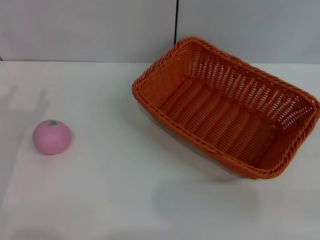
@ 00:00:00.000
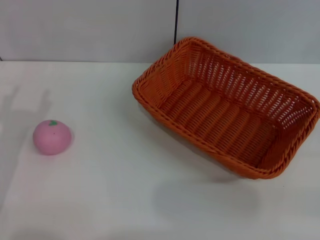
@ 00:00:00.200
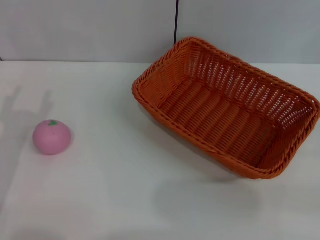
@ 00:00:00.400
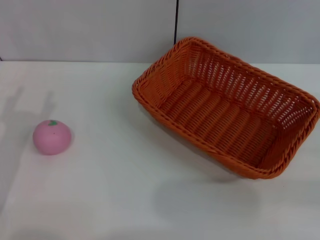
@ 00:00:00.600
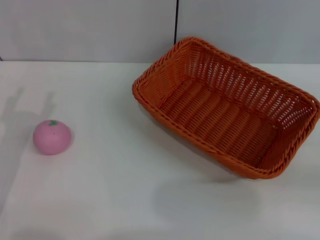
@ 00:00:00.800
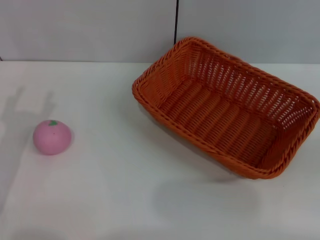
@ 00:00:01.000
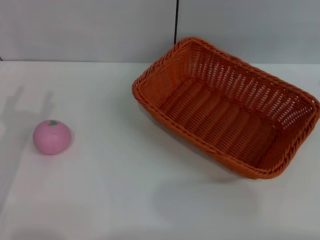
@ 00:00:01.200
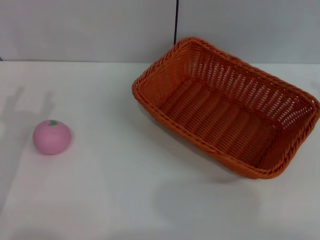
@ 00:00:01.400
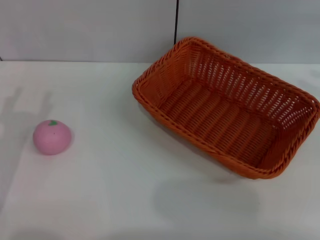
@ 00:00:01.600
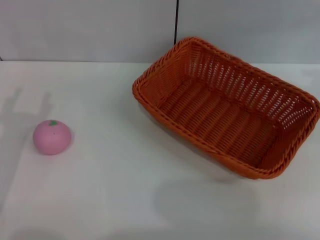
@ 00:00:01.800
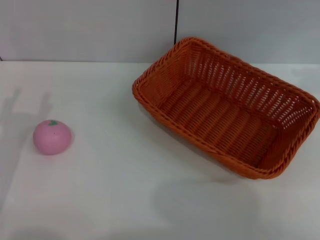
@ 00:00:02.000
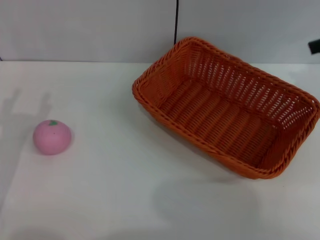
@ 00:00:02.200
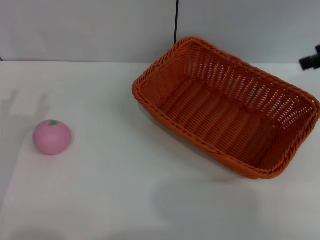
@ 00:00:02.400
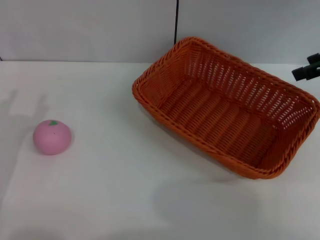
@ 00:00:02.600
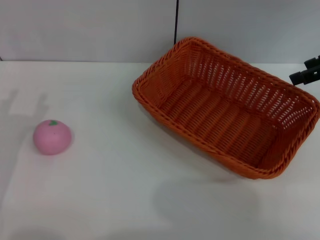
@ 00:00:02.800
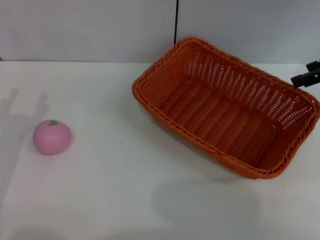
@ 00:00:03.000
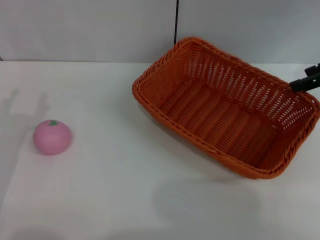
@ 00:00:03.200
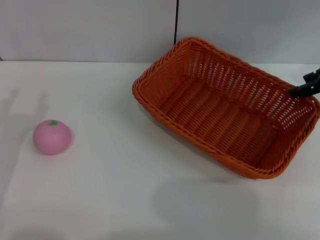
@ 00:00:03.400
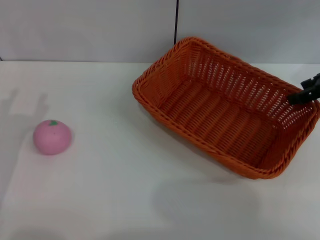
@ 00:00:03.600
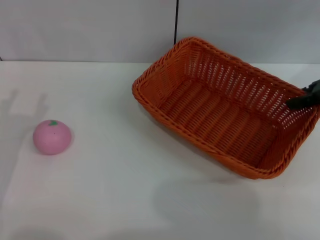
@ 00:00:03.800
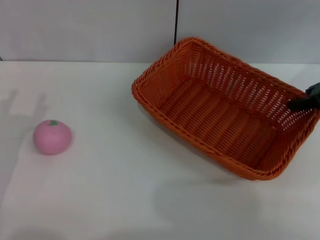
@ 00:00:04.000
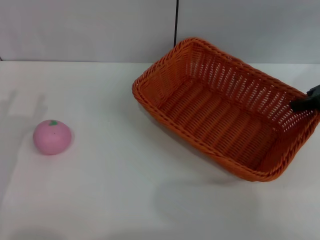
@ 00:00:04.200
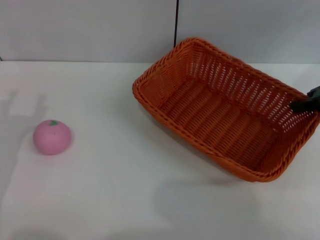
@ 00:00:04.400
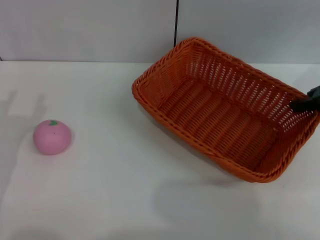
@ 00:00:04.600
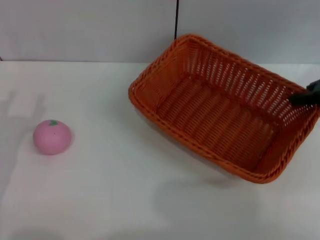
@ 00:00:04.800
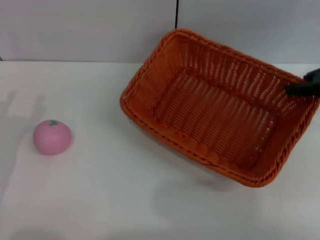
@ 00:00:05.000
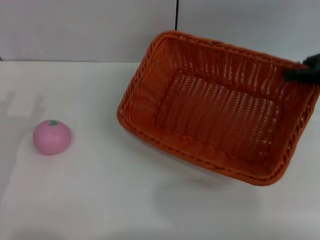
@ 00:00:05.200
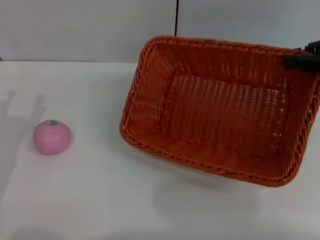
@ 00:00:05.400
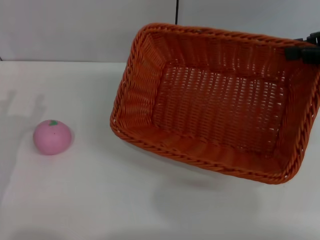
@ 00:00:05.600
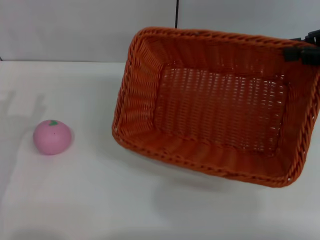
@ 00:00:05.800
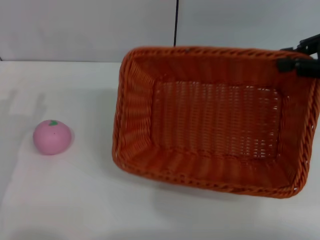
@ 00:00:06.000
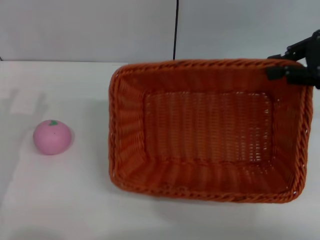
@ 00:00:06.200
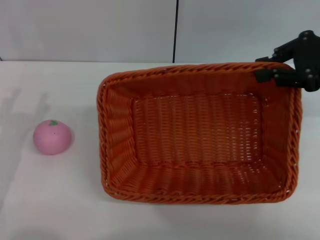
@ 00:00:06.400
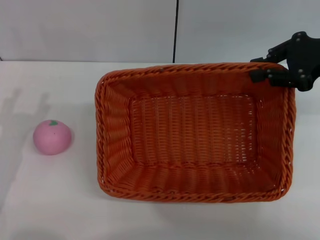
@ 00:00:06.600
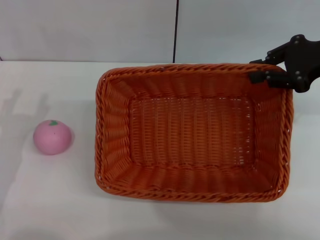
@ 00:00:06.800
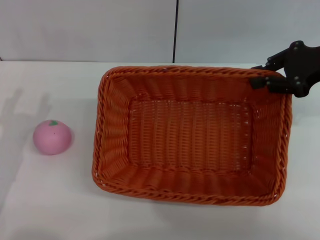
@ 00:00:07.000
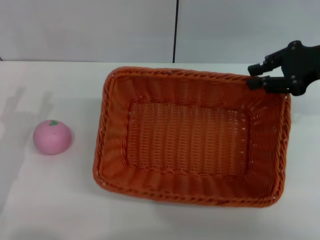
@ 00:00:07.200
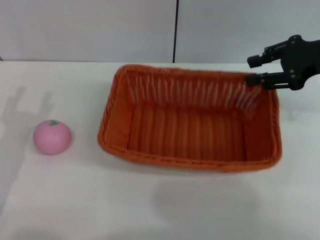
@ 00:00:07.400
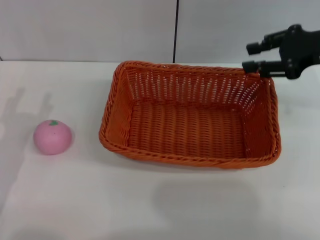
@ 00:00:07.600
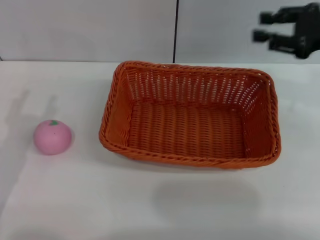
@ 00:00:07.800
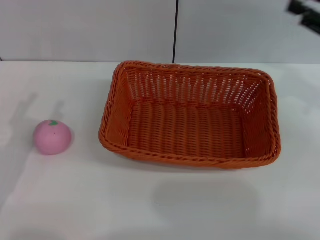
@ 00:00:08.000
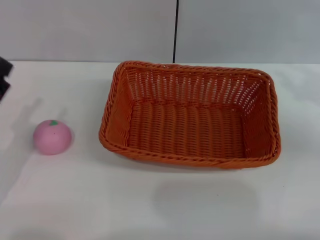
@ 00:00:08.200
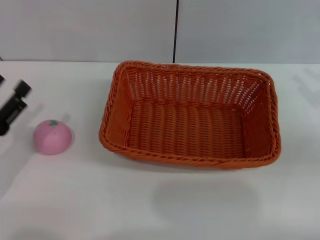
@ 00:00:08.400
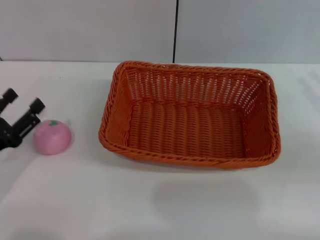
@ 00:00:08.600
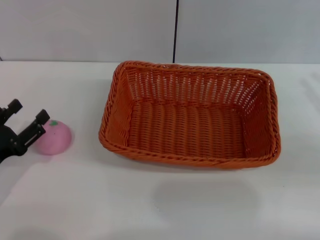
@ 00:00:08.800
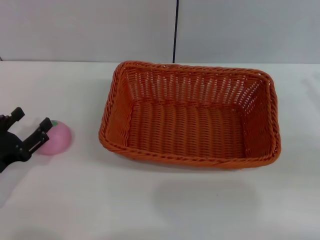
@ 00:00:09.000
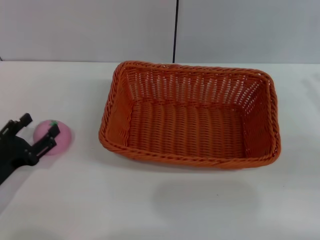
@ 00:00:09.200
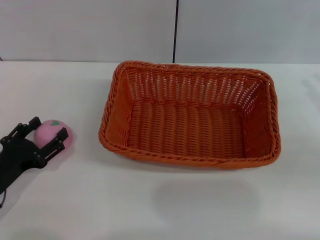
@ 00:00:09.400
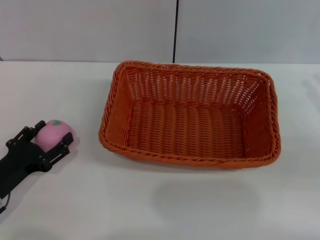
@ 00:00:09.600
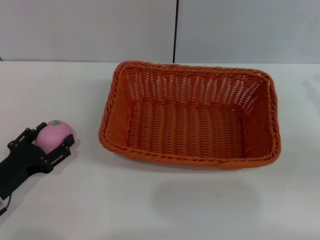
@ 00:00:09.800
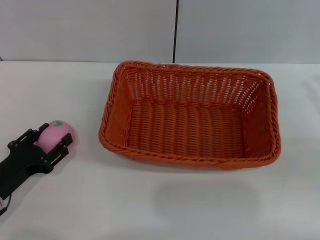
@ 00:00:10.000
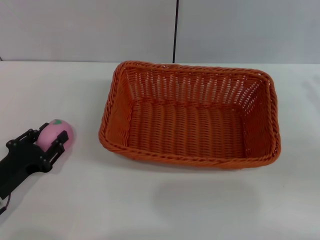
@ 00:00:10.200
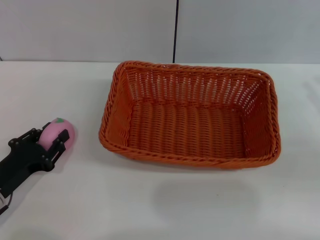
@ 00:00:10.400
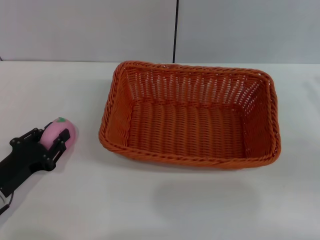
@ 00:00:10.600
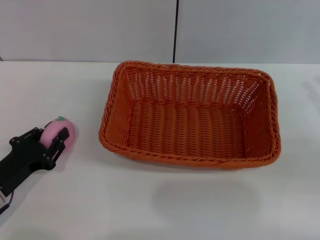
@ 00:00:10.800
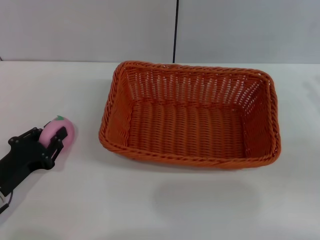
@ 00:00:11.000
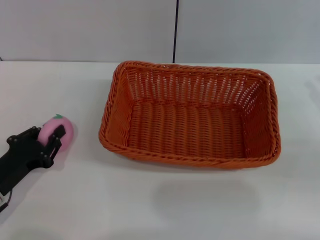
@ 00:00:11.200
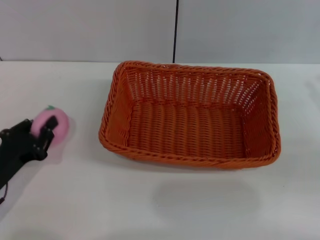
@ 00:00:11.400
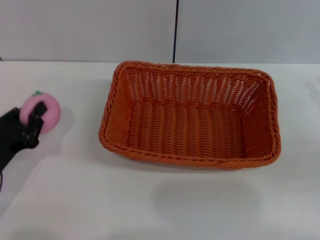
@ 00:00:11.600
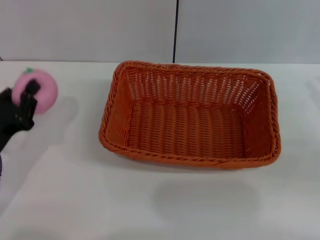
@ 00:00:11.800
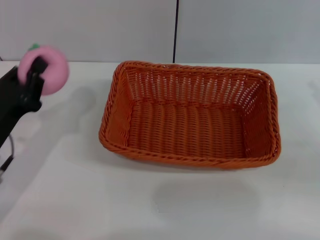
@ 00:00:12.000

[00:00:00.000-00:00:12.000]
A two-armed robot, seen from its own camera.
Step, 00:00:00.000 to 00:00:05.600: Pick up the light basket with the right gripper.
Step, 00:00:06.000 to 00:00:07.600: Place the light basket in the center of view with the right gripper.
00:00:01.600 to 00:00:03.000: The right gripper heads downward, forward and to the left, covering some 15 cm.
00:00:03.000 to 00:00:04.400: The right gripper closes.
00:00:04.400 to 00:00:06.000: The right gripper heads upward, covering roughly 5 cm.
00:00:06.000 to 00:00:07.600: The right gripper changes place by roughly 5 cm, and opens its fingers.
00:00:07.600 to 00:00:09.000: The left gripper shifts approximately 5 cm downward. The right gripper heads backward, to the right and downward, covering roughly 15 cm.
00:00:09.000 to 00:00:10.400: The left gripper closes its fingers.
00:00:10.400 to 00:00:12.000: The left gripper travels upward by about 5 cm, and closes its fingers.

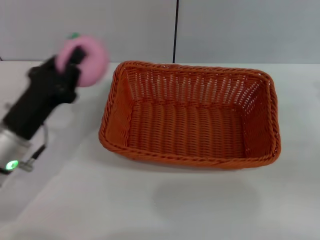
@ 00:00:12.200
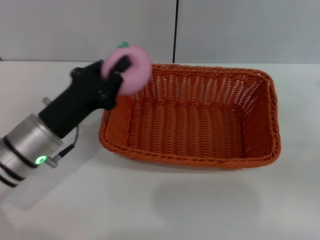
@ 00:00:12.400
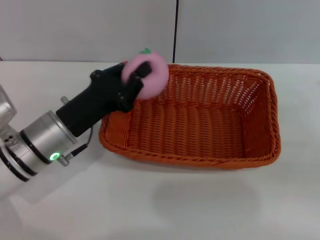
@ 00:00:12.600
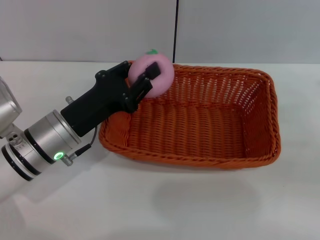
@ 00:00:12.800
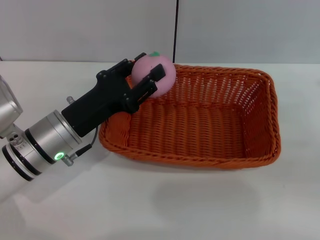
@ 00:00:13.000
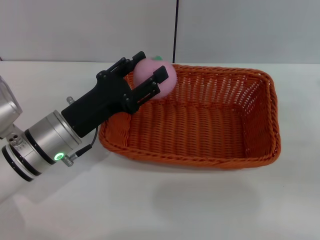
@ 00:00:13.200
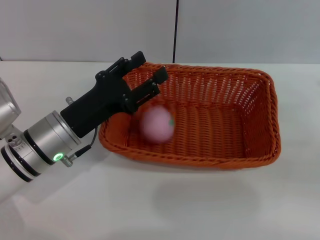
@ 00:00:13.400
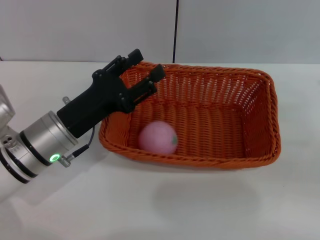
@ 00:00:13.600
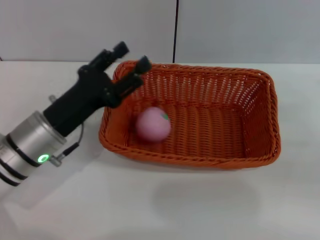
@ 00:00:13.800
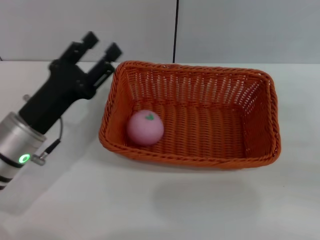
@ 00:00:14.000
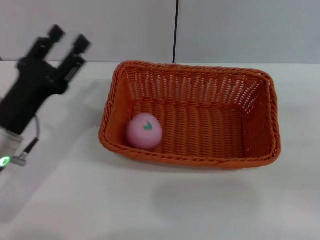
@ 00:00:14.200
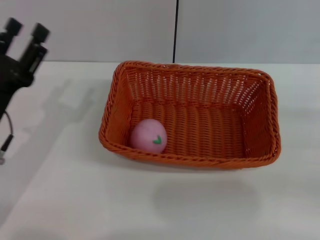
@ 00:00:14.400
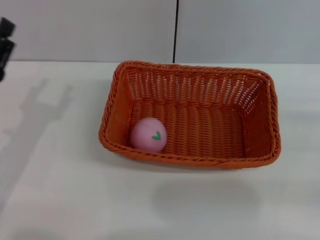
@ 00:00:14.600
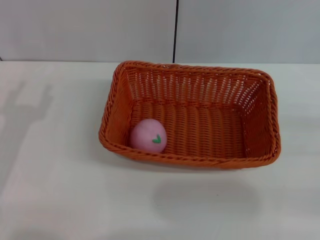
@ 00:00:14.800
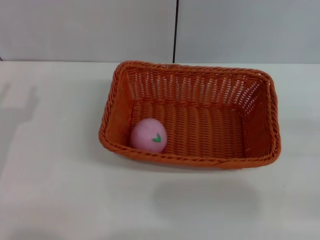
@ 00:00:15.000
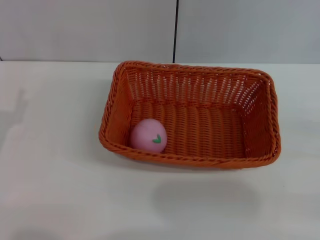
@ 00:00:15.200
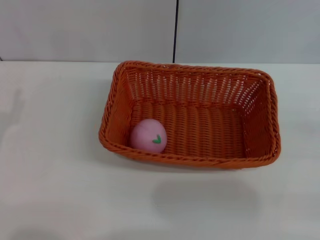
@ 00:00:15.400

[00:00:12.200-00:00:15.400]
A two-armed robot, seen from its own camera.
Step, 00:00:12.200 to 00:00:14.000: Place the peach into the basket with the left gripper.
00:00:12.200 to 00:00:13.800: The left gripper opens.
00:00:13.800 to 00:00:15.400: The right gripper ends up some 5 cm from where it was; the left gripper travels to the left and backward by roughly 15 cm.
